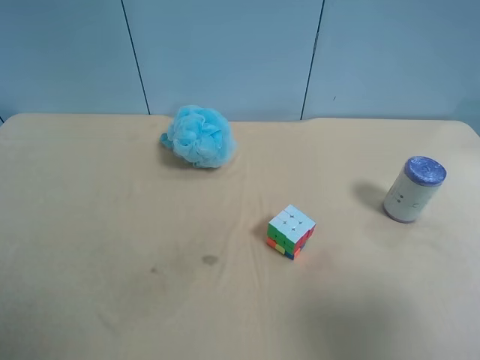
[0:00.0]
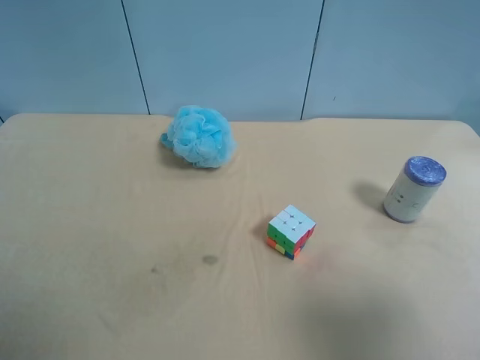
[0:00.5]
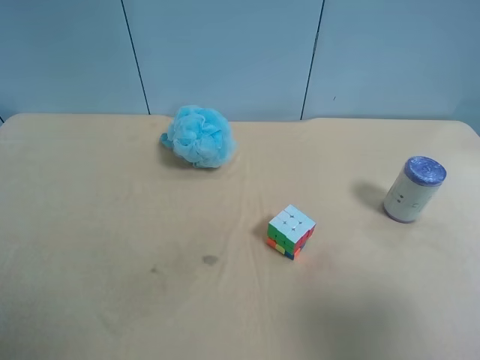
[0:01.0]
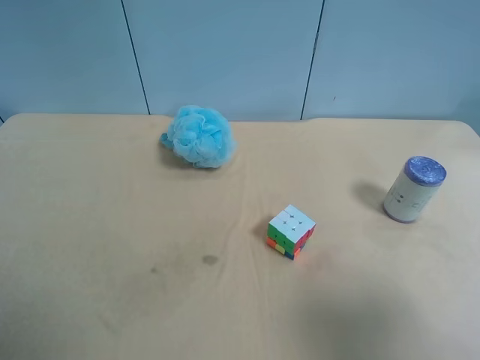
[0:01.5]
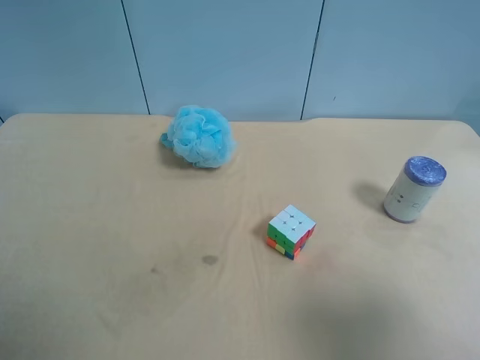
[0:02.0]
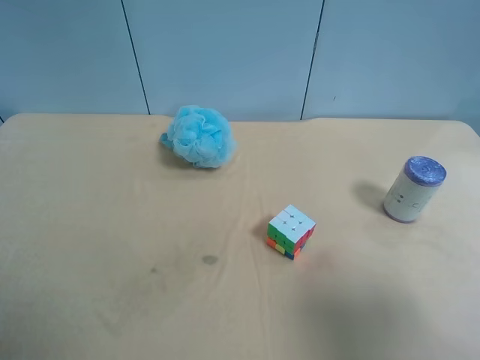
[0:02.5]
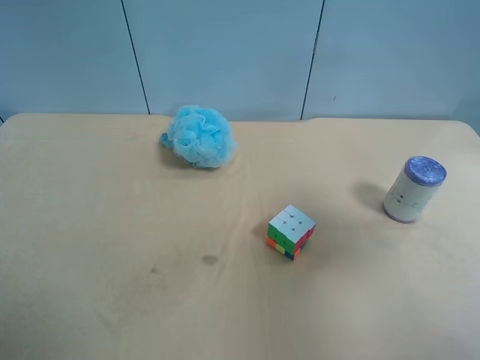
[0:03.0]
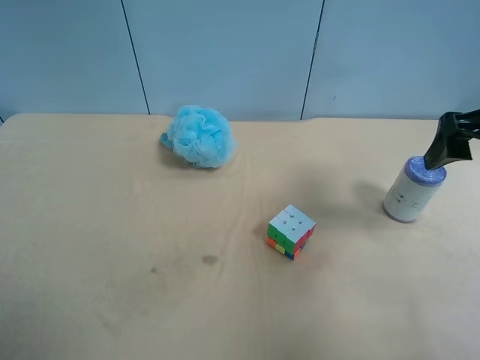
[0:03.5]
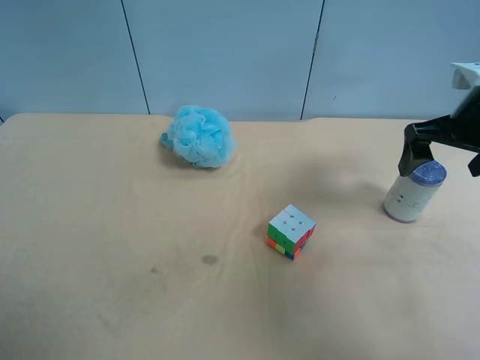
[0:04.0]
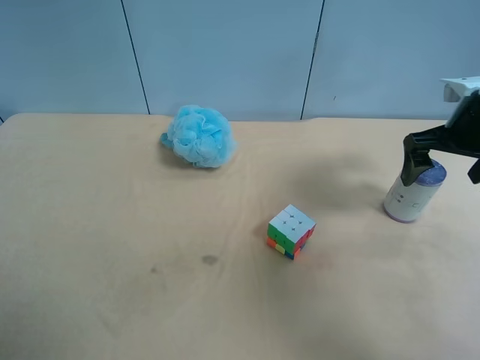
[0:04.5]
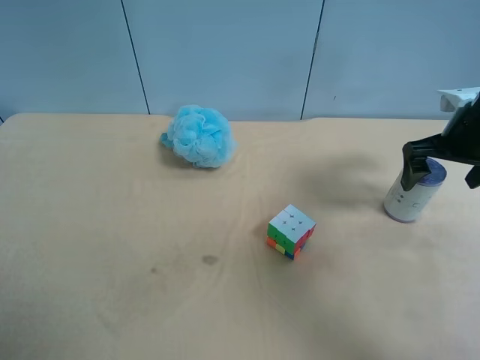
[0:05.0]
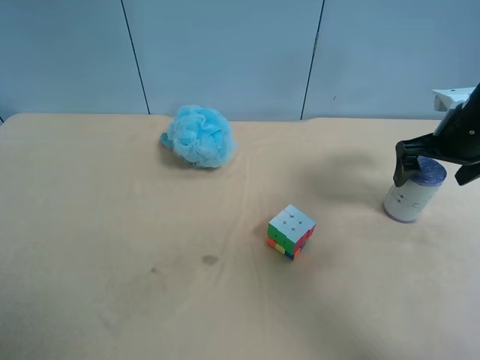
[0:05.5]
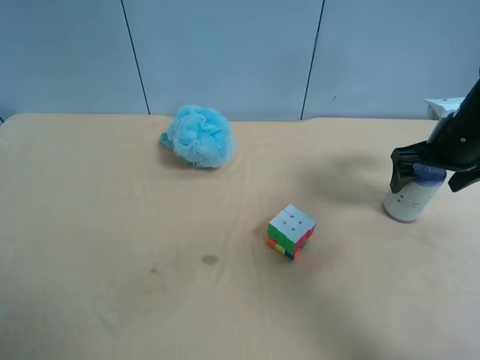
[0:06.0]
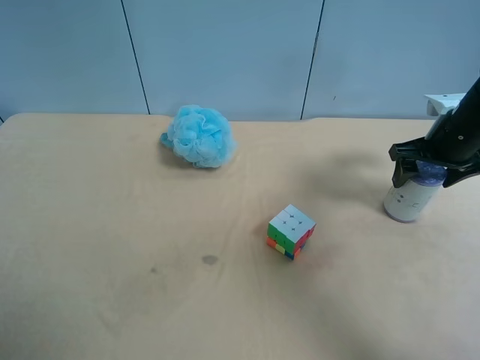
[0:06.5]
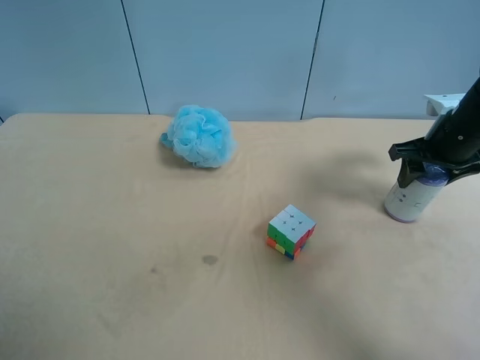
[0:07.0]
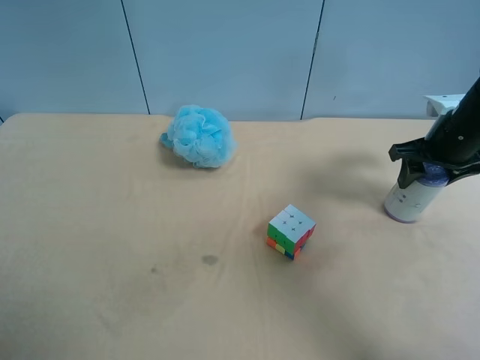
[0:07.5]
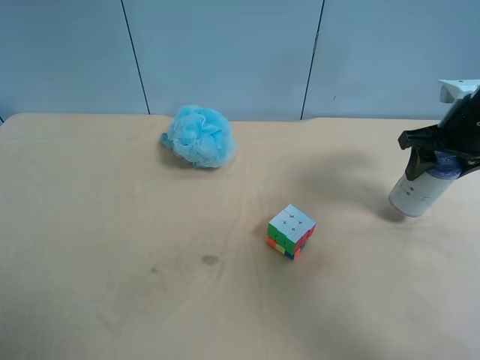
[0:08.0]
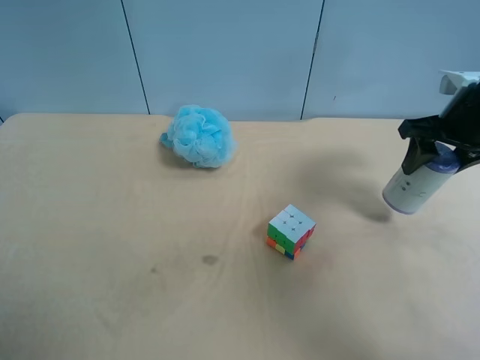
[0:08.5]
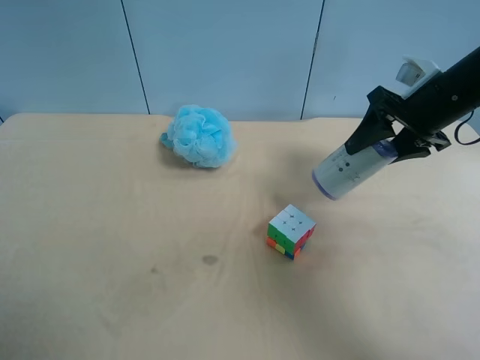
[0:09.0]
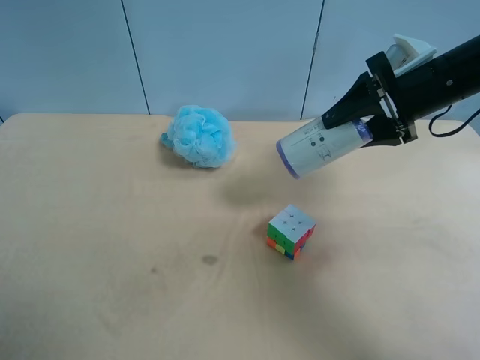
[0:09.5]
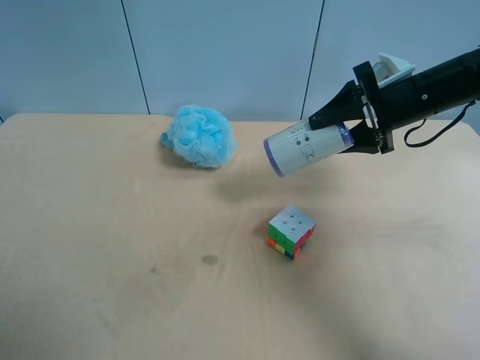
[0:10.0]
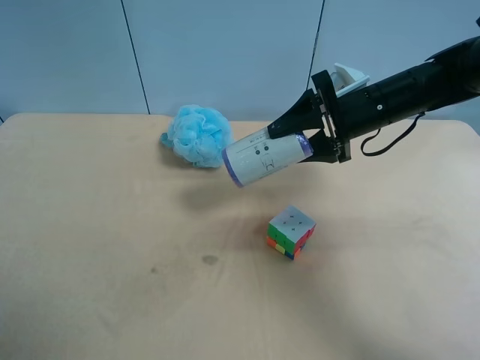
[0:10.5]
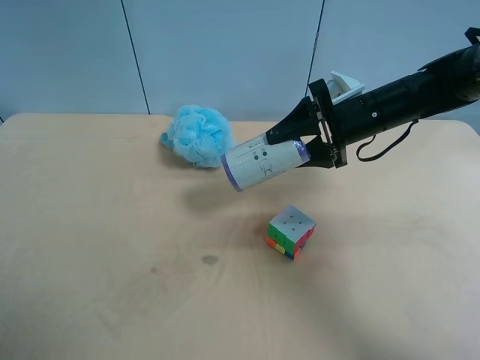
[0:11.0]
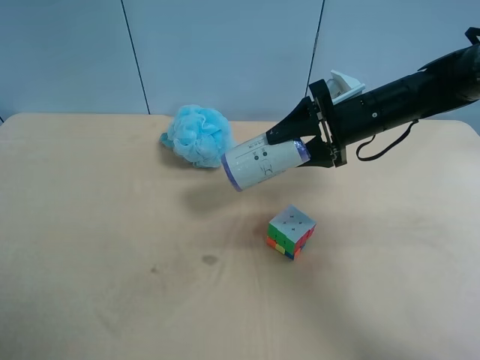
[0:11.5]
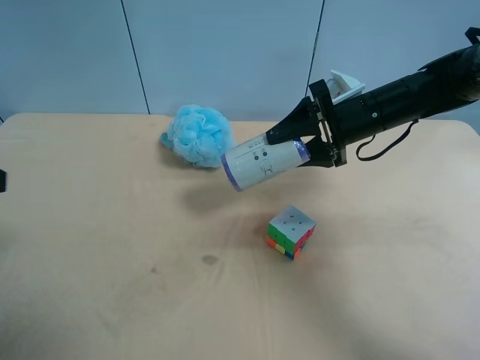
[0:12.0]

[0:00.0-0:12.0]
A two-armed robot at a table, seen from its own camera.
Task of the whole recording: use the right gripper to pick up the item and transfer it from the right gripper to the left gripper.
0:00.0 to 0:02.0: Both grippers stay about where they are.
0:02.0 to 0:04.0: The right gripper goes approximately 30 cm forward.
0:04.0 to 0:06.0: The right gripper is displaced downward by roughly 5 cm.
0:06.0 to 0:08.0: The right gripper closes up.
0:08.0 to 0:10.0: The right gripper goes approximately 5 cm to the left.
0:10.0 to 0:12.0: The left gripper goes about 15 cm forward; the right gripper moves to the left, some 5 cm.

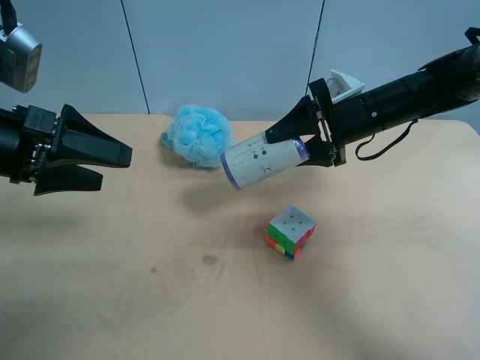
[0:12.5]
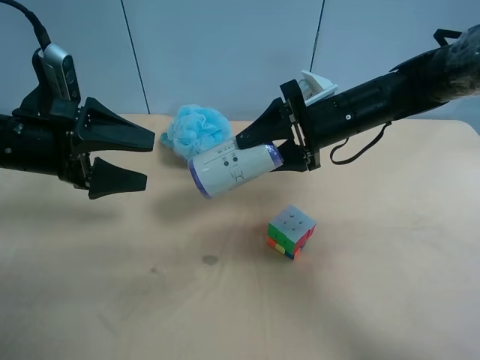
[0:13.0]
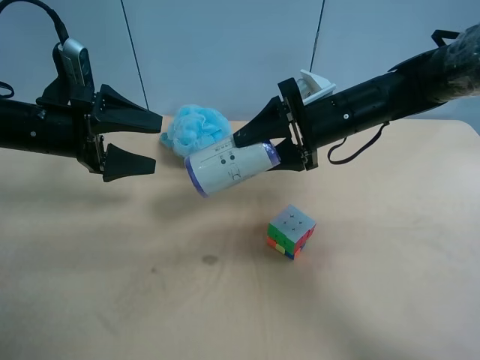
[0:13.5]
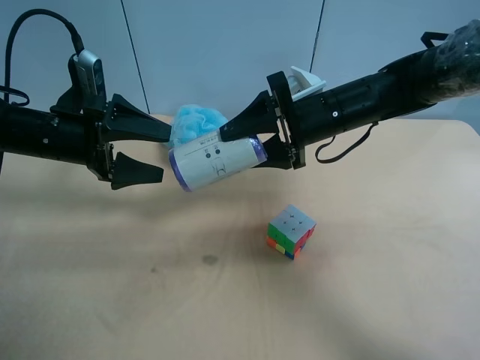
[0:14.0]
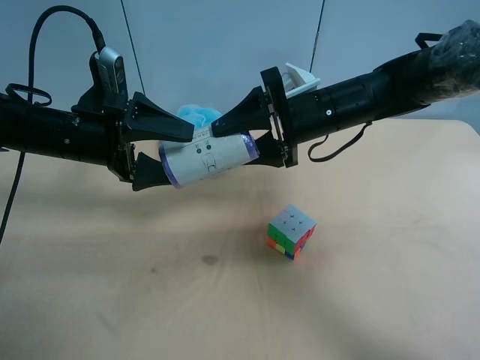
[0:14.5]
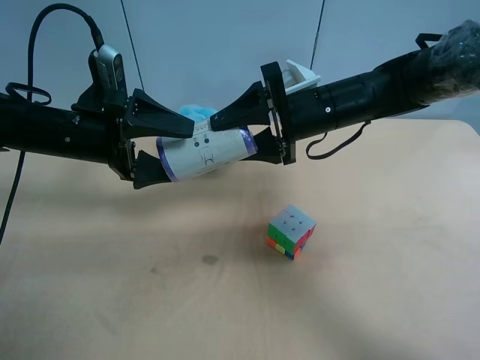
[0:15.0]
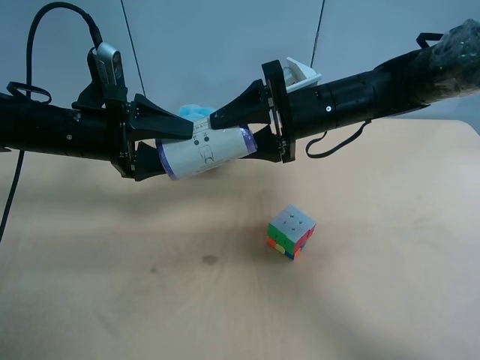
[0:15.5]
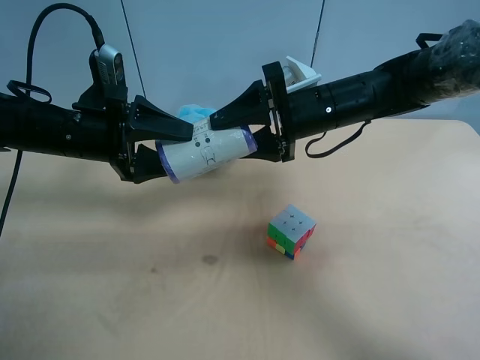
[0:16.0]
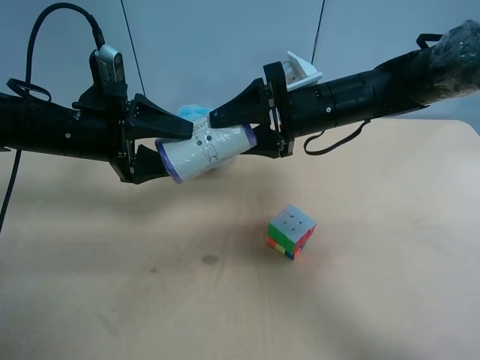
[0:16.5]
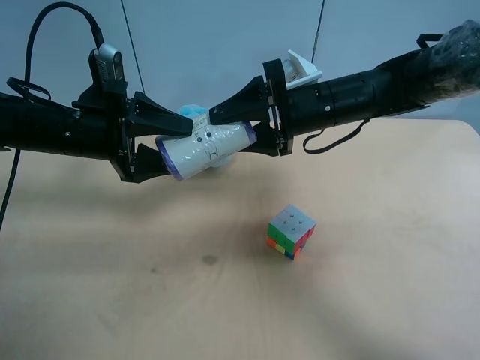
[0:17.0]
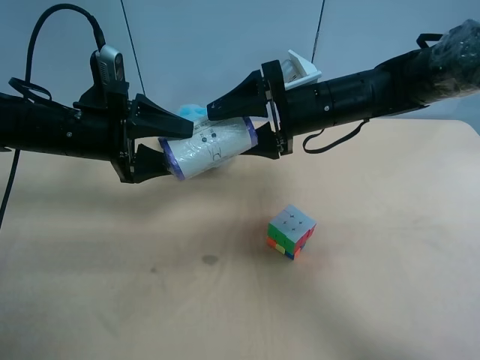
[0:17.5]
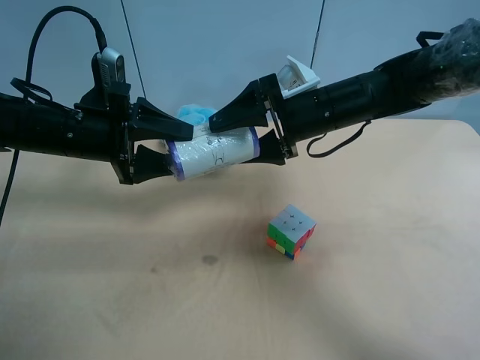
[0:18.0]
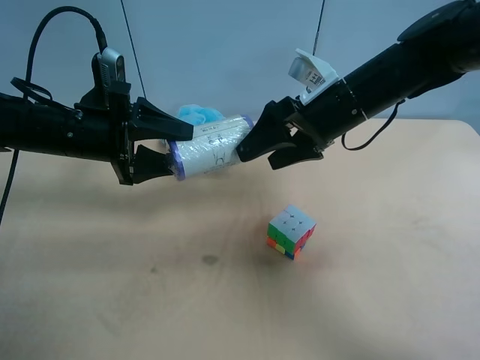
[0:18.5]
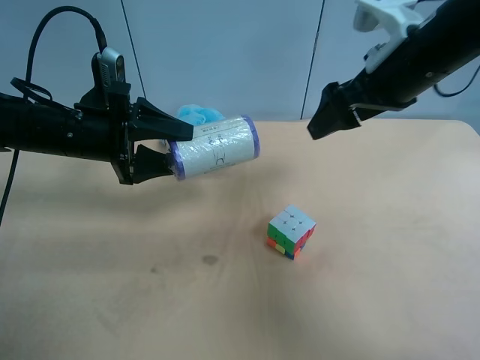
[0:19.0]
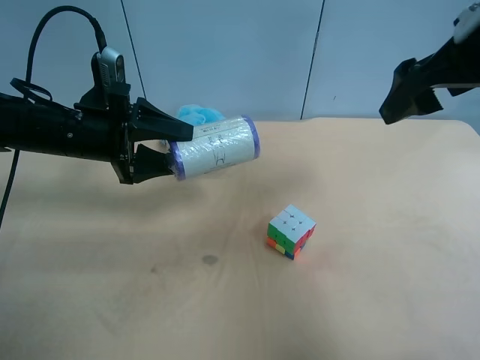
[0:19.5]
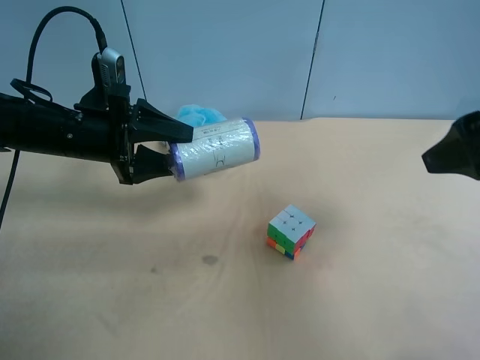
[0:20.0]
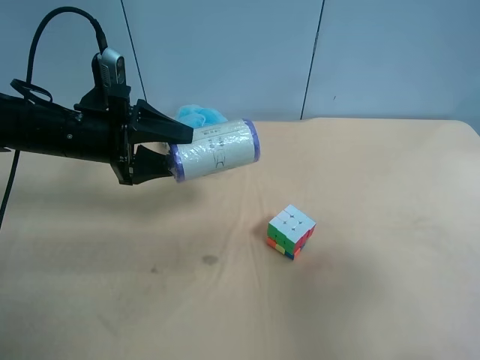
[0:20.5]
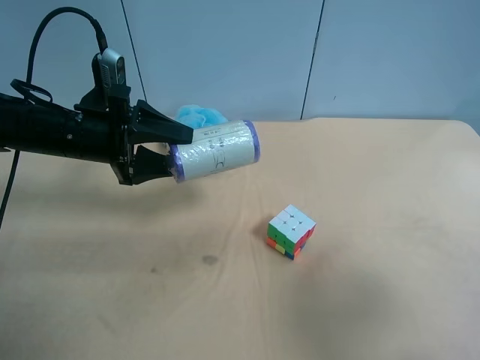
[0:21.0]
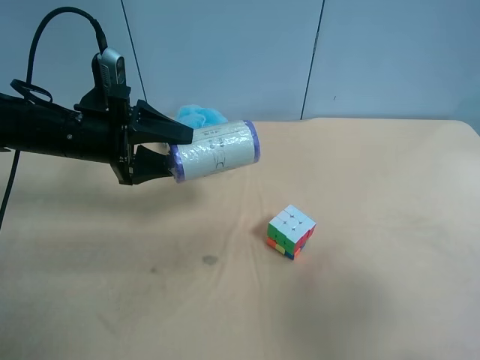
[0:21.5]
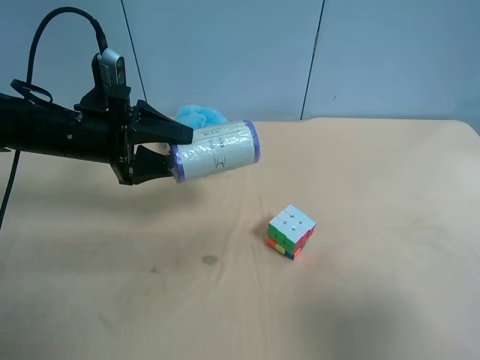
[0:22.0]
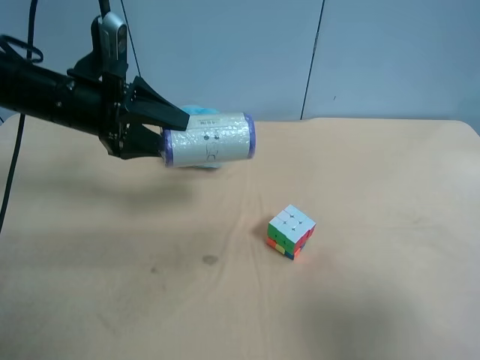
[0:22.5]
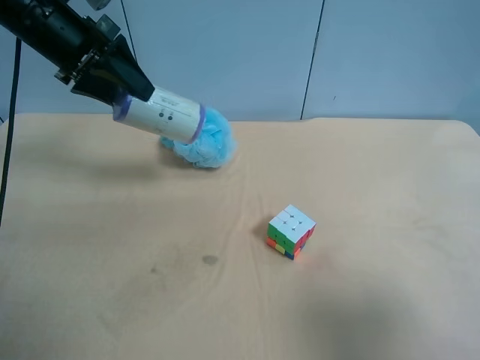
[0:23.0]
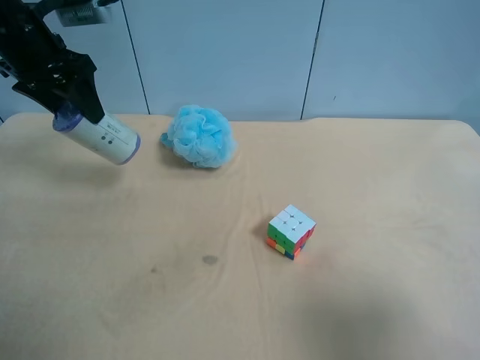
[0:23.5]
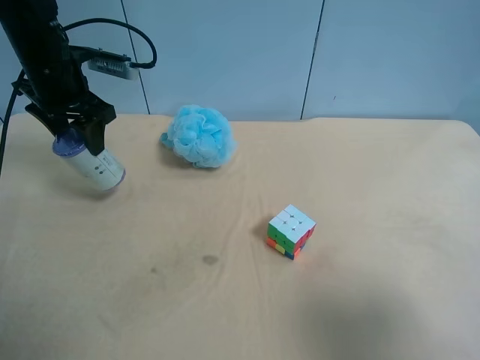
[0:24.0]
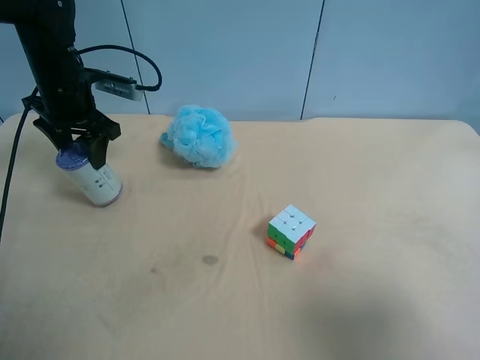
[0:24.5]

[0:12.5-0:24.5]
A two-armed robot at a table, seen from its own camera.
Task of the whole recording: use the right gripper to pick up the item and transfer it from the right gripper to the left gripper.
0:12.5 to 0:14.5: The right gripper travels to the left by roughly 5 cm, while the left gripper goes about 10 cm forward, downward and to the right.
0:14.5 to 0:16.5: The left gripper closes.
0:16.5 to 0:18.5: The right gripper opens its fingers.
0:18.5 to 0:20.5: The right gripper heads backward and to the right, covering some 30 cm.
0:20.5 to 0:22.5: The right gripper goes about 5 cm backward. Meanwhile the left gripper ends up some 5 cm from where it was.
0:22.5 to 0:24.5: The left gripper is displaced forward by about 5 cm, and reaches roughly 10 cm upward, then returns.

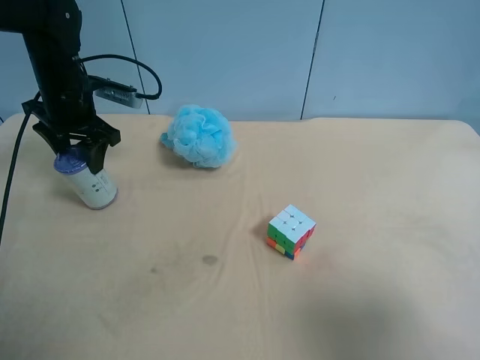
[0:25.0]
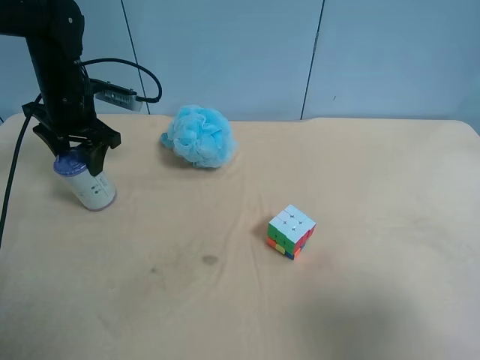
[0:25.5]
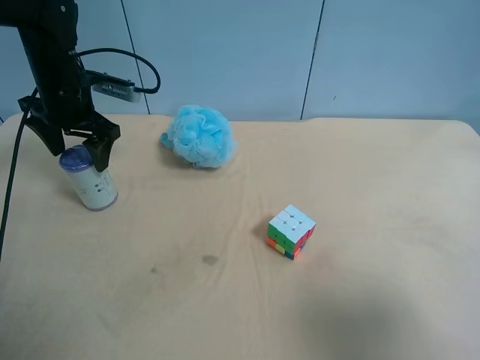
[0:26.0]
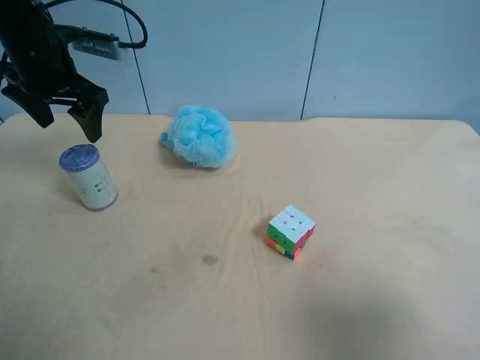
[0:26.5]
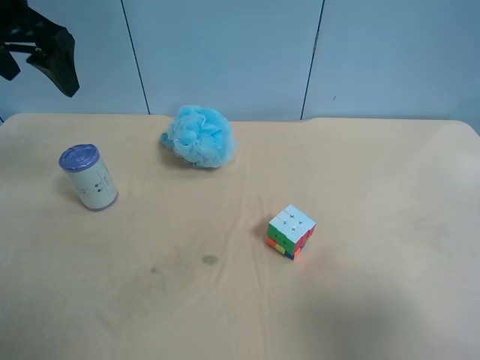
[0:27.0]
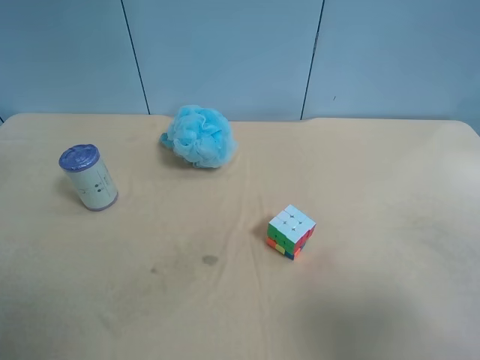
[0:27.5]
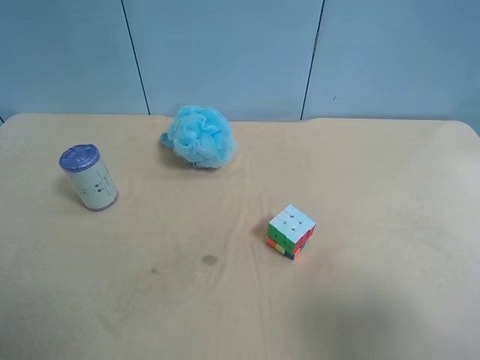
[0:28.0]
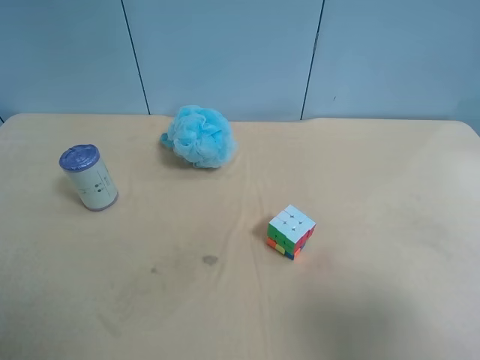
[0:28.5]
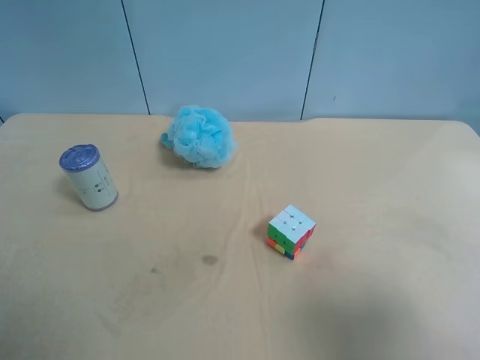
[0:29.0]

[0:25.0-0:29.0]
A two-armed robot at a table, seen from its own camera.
Task of the whole recording: use the right gripper to pick up the item and transfer it from the right gripper to the left gripper.
0:25.0 to 0:27.0: The left gripper heads upward and backward, covering some 20 cm, and opens its fingers.
0:27.0 to 0:29.0: The left gripper moves backward, some 30 cm.
